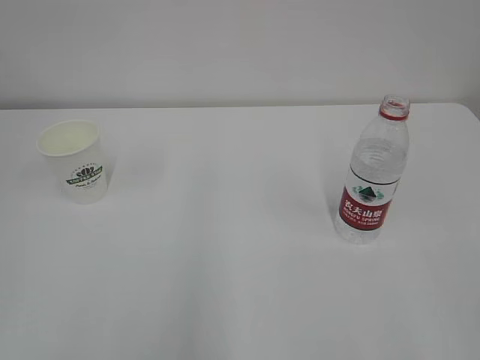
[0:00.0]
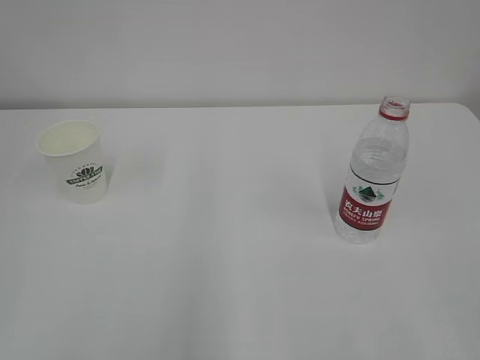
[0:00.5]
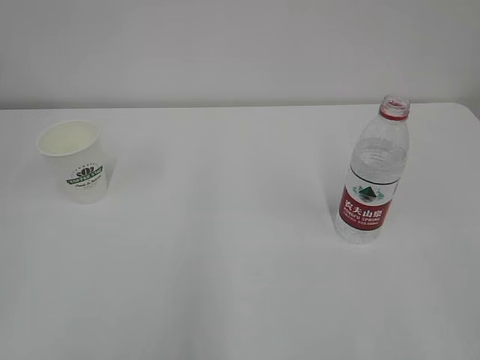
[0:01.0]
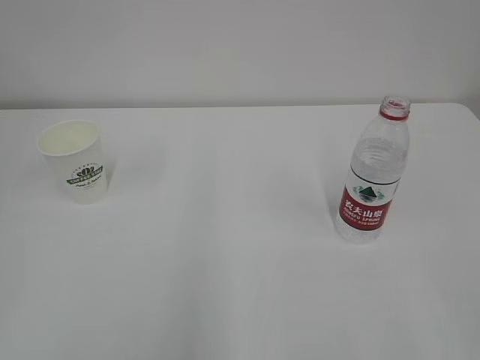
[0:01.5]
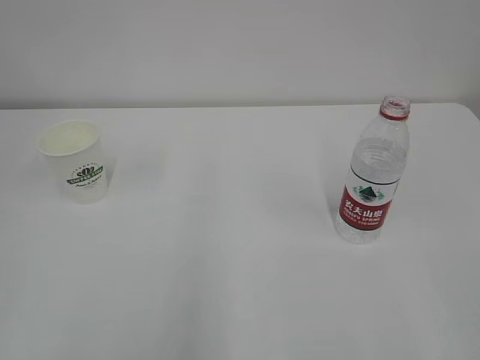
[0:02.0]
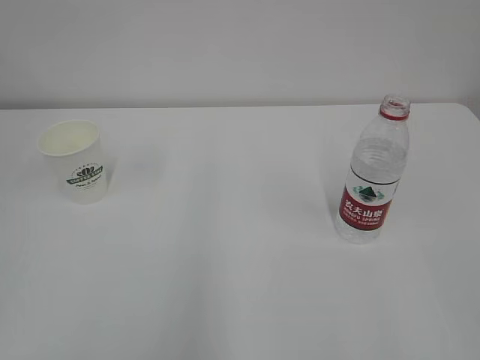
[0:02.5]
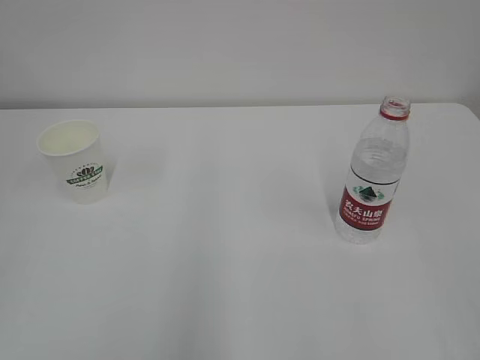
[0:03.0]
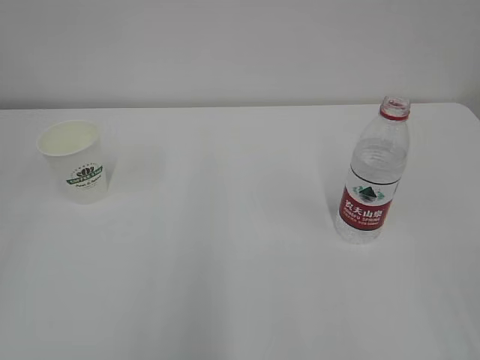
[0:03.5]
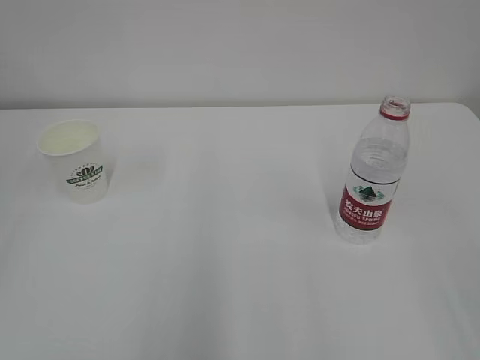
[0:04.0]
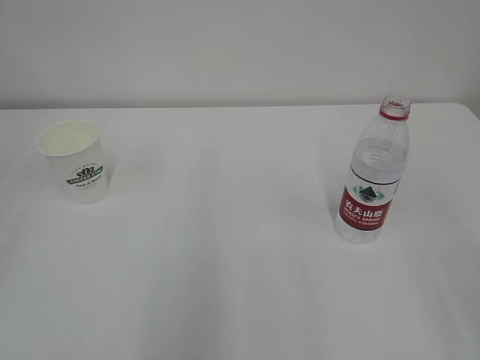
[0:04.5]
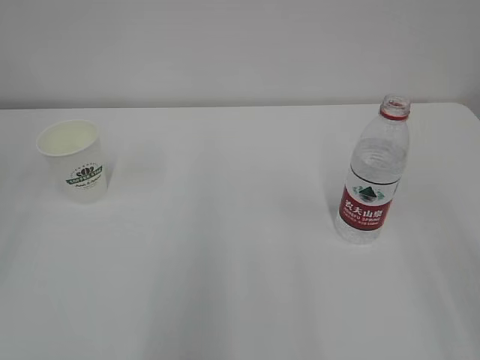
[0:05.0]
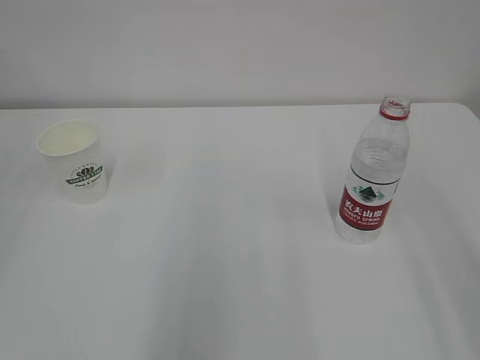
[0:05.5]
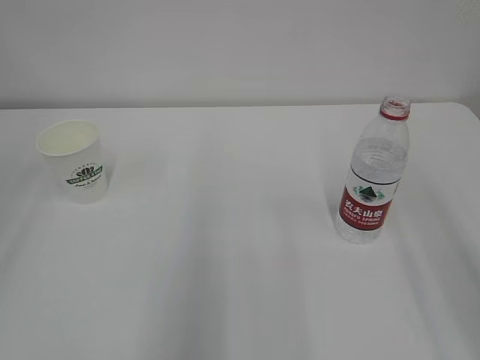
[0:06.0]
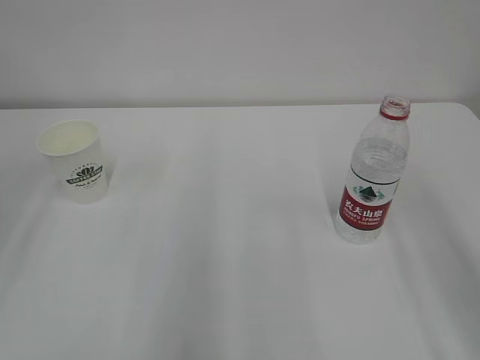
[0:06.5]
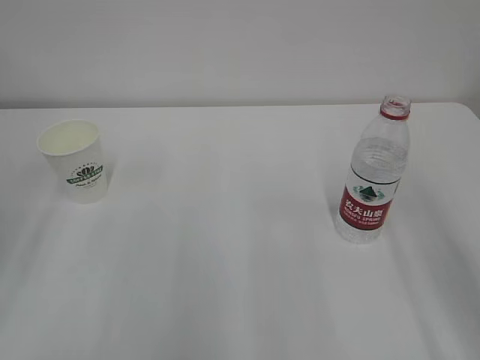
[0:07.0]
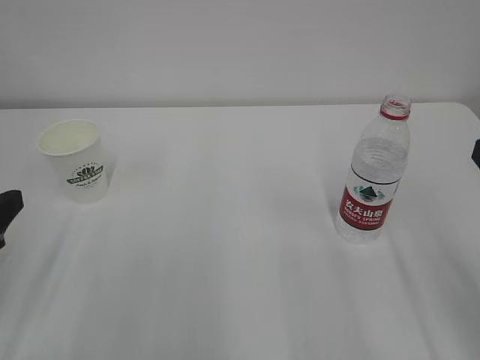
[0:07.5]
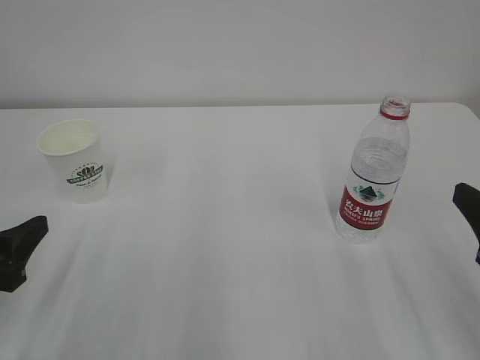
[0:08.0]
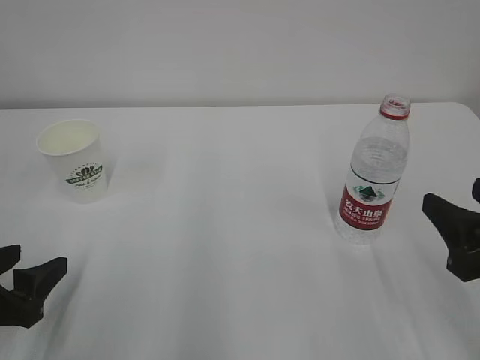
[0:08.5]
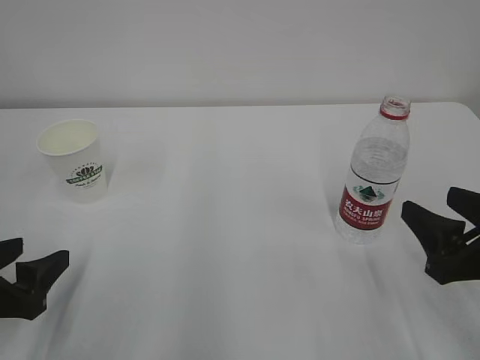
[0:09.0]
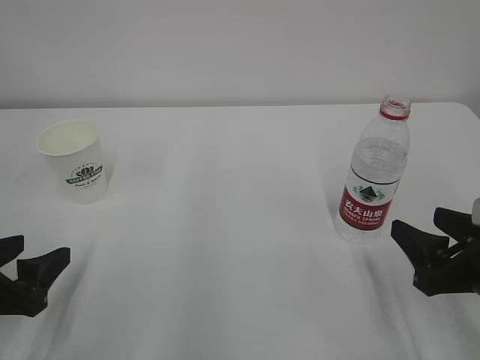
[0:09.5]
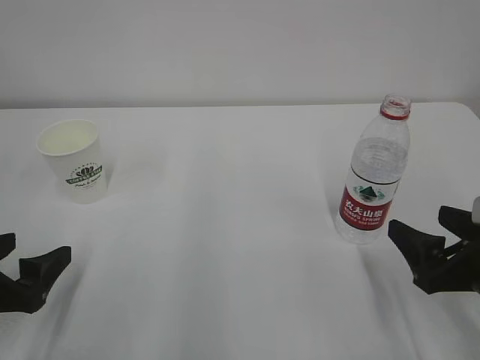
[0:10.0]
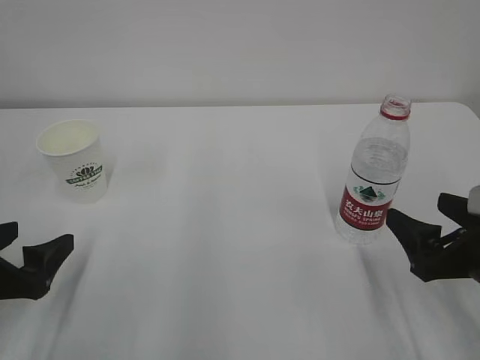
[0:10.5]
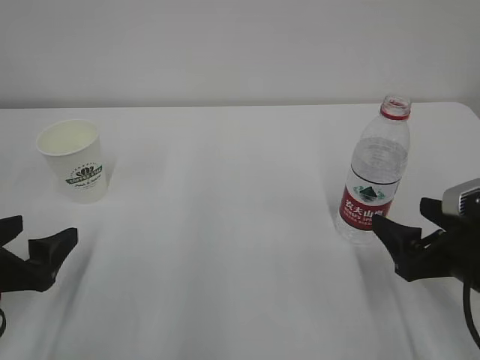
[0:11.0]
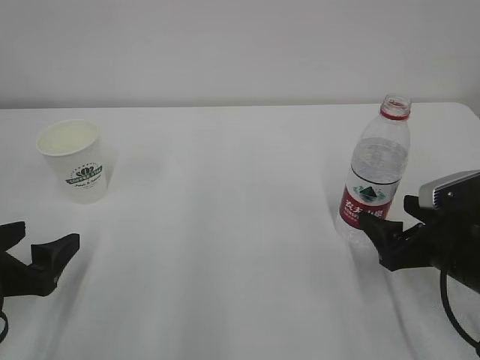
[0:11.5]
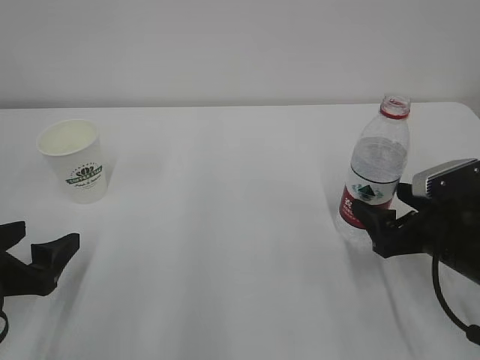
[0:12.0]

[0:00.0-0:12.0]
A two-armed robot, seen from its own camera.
0:06.0 to 0:08.0: The left gripper goes some 20 cm downward.
0:08.0 to 0:10.0: The left gripper opens its fingers. The right gripper shifts roughly 5 cm downward, and opens.
0:10.0 to 0:12.0: The right gripper shifts roughly 5 cm forward.

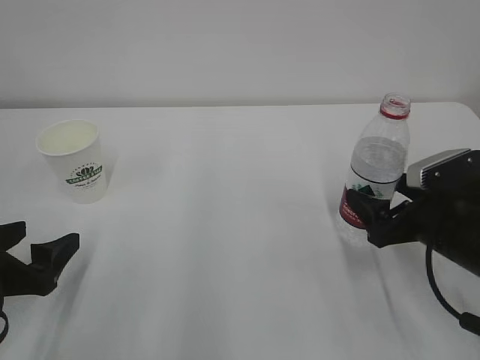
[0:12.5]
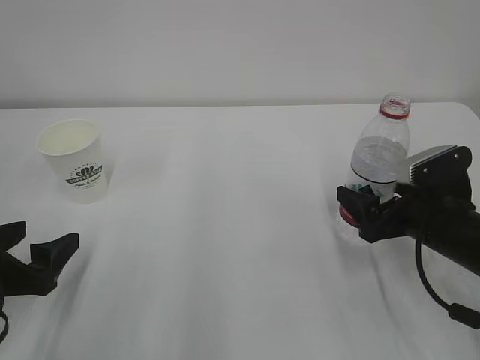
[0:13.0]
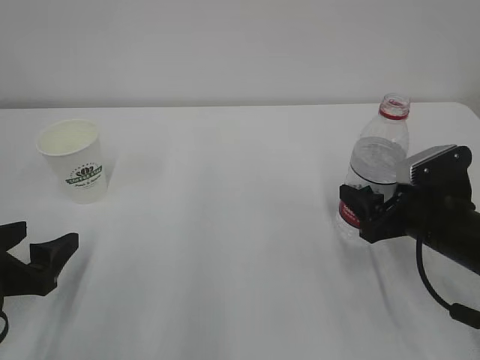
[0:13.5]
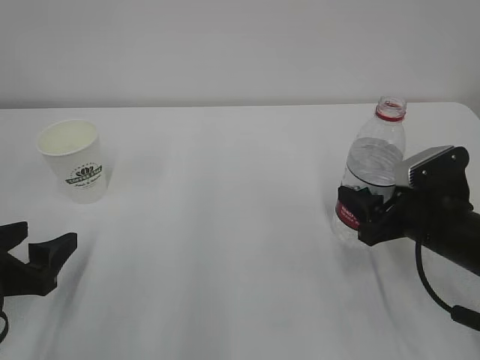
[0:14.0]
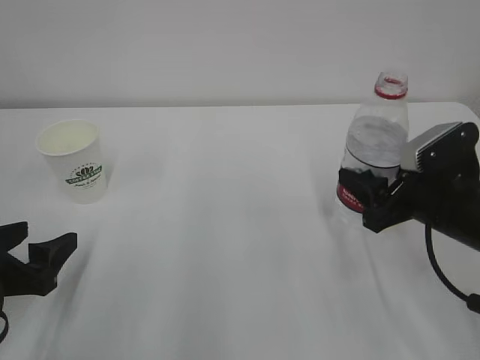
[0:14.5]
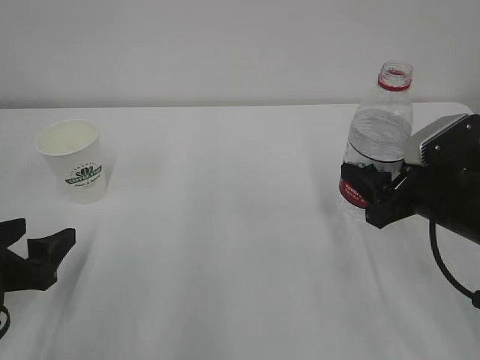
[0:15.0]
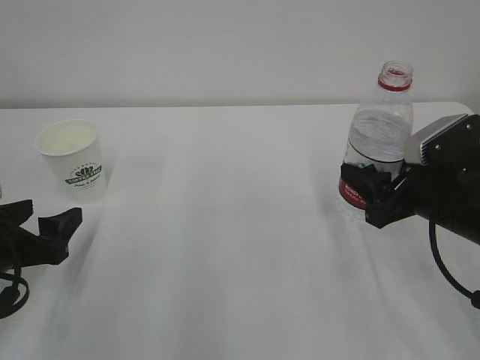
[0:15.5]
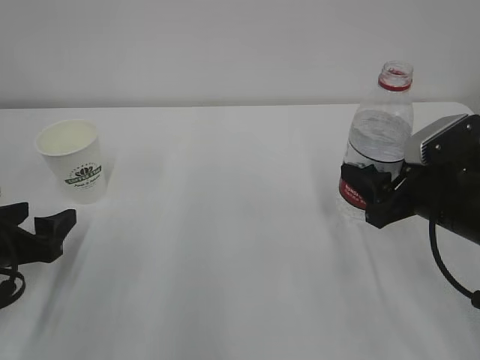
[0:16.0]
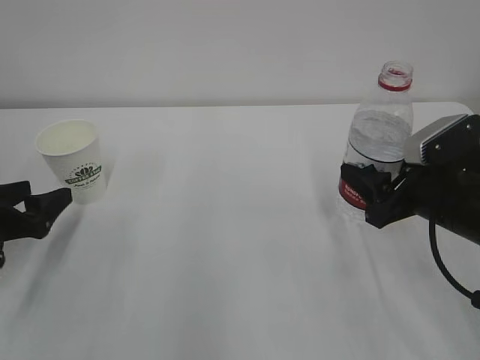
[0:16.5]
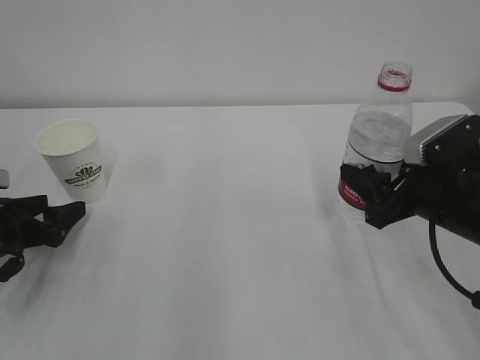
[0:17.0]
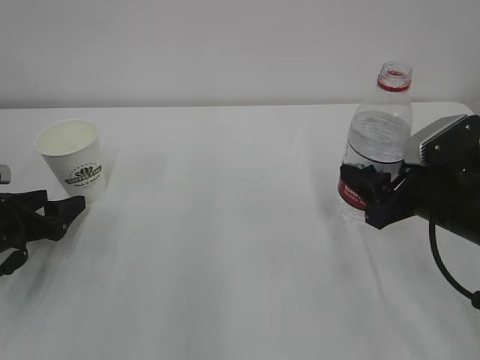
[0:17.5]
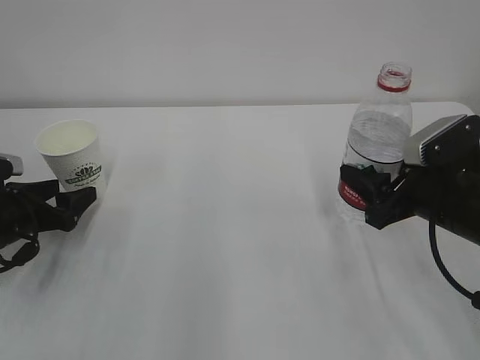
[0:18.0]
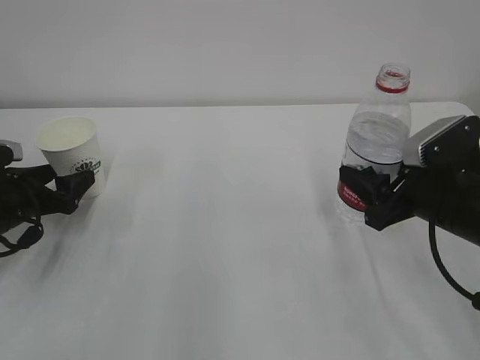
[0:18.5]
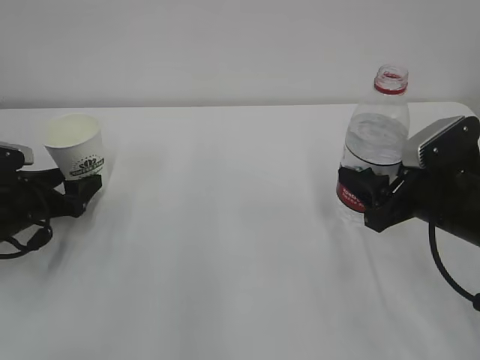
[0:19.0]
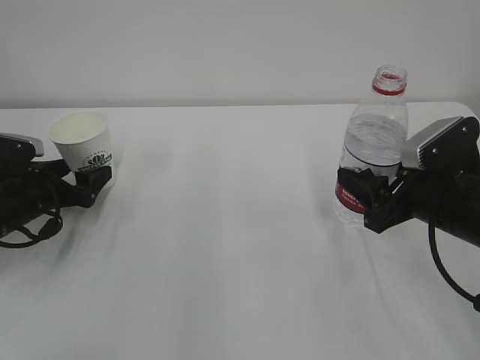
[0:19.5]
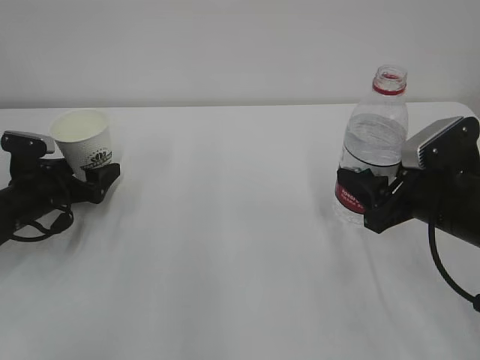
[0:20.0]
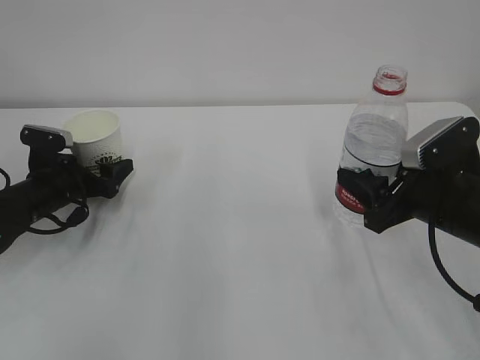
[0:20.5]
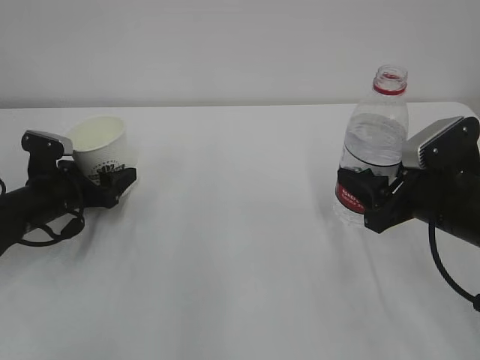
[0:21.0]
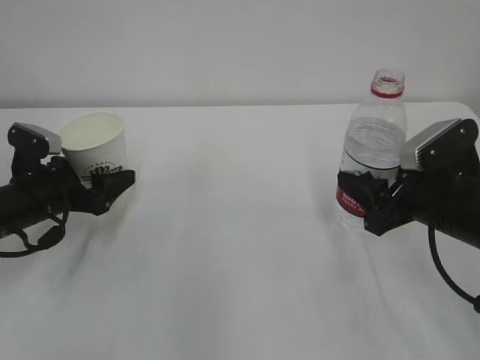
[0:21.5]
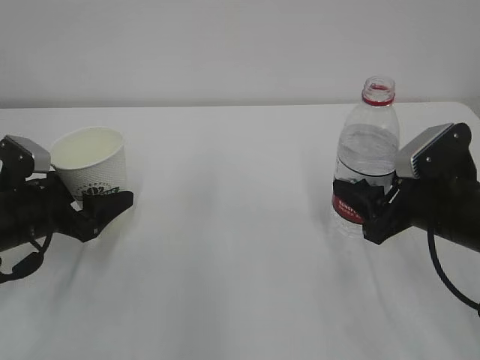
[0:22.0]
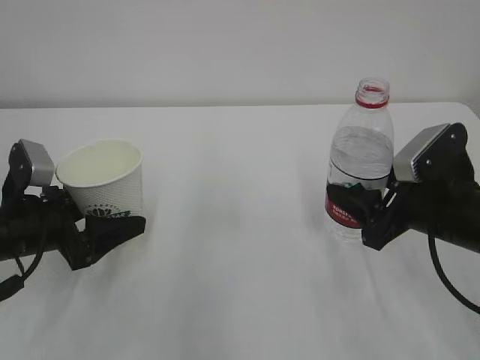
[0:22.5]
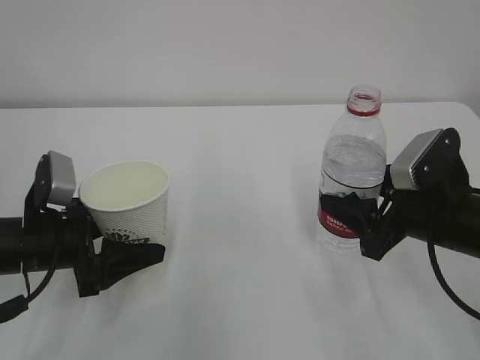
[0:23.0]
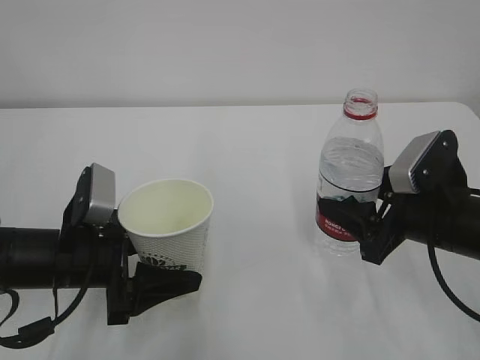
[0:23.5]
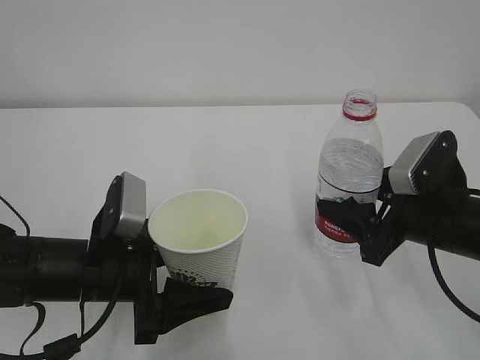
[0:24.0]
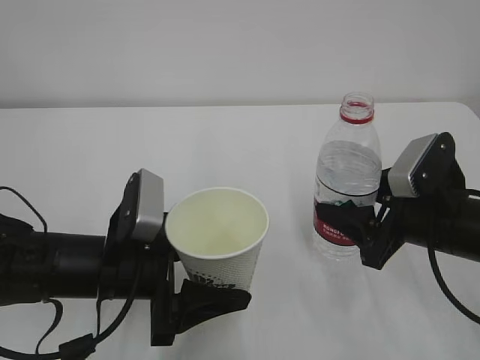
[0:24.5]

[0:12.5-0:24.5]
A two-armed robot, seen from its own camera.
0:12.5 to 0:14.5: The right gripper closes up.
0:14.5 to 0:16.5: The left gripper travels forward by approximately 5 cm.
0:16.5 to 0:18.5: The left gripper heads forward, covering roughly 5 cm.
0:18.5 to 0:20.5: The left gripper moves forward, approximately 5 cm.
0:20.5 to 0:22.5: The left gripper is displaced backward and upward by roughly 15 cm.
0:22.5 to 0:24.5: The left gripper travels to the right and backward by roughly 15 cm.

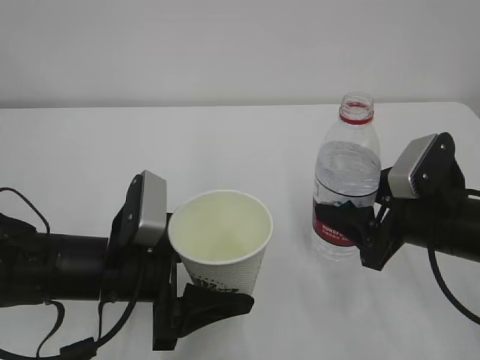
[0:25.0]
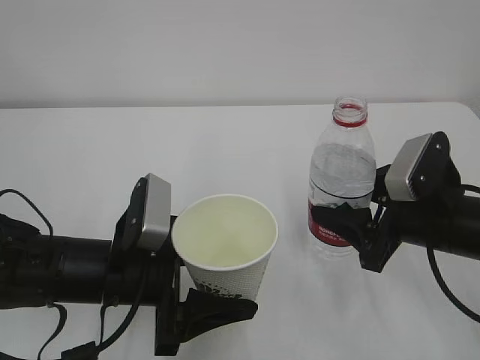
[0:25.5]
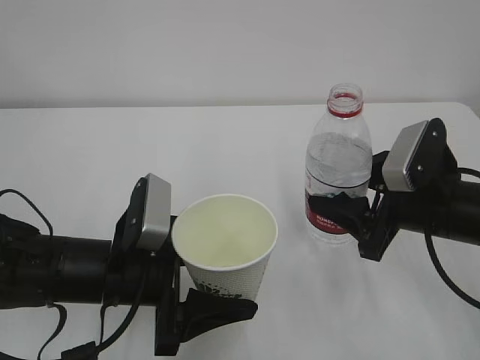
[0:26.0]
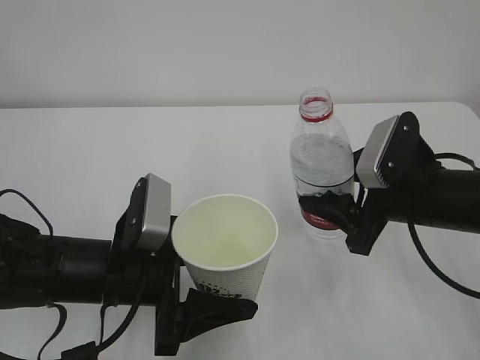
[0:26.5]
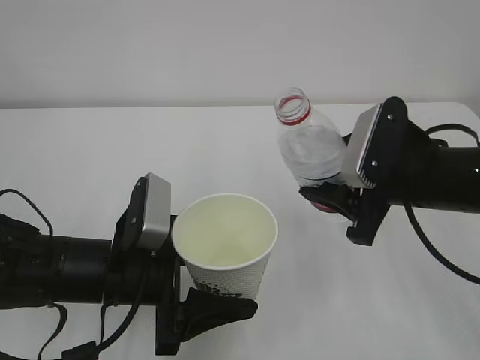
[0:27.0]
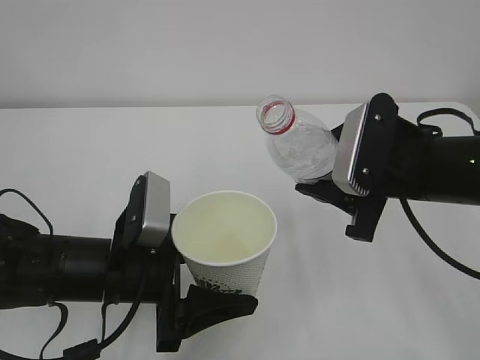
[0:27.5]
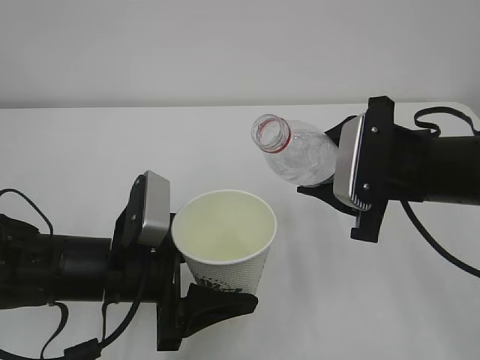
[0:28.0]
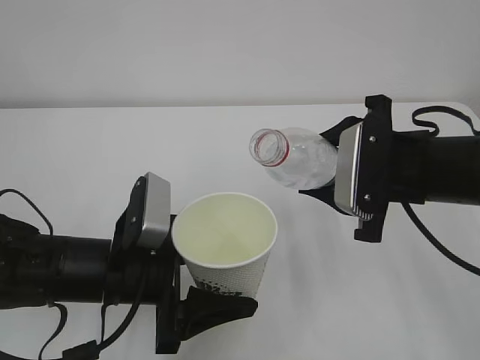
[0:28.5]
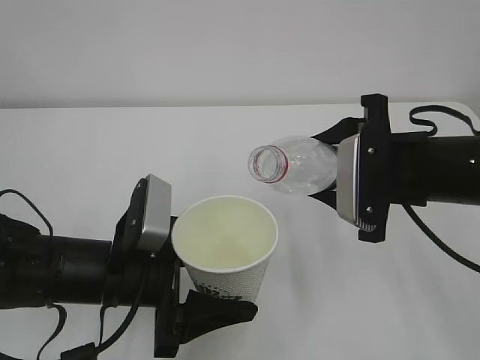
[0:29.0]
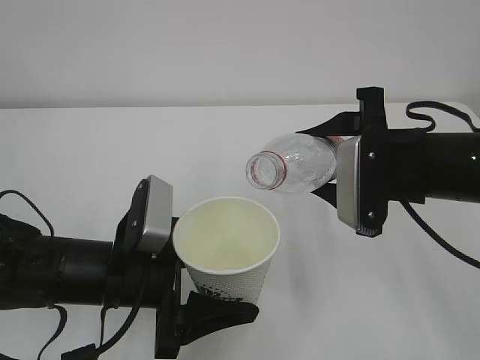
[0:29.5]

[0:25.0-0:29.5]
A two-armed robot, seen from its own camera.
0:25.0 to 0:27.0: The right gripper moves roughly 5 cm.
